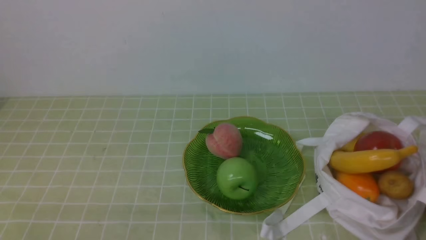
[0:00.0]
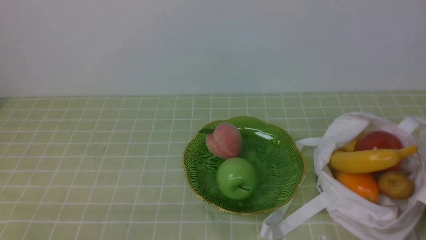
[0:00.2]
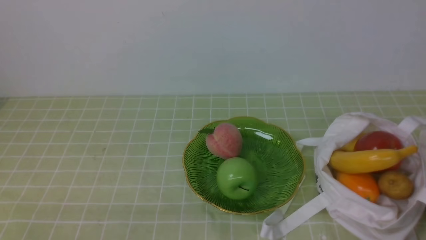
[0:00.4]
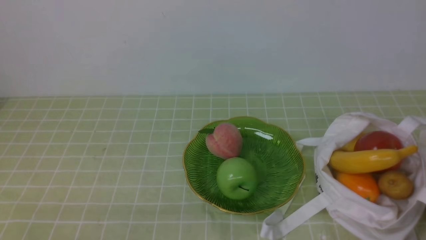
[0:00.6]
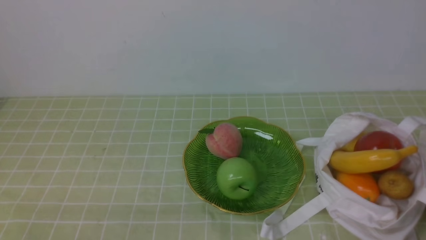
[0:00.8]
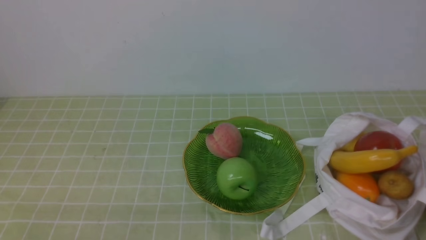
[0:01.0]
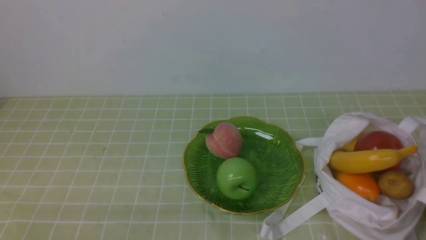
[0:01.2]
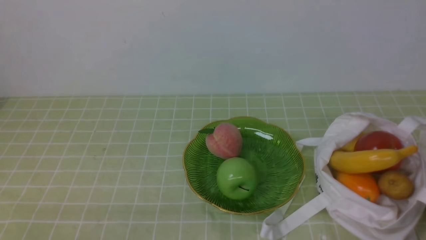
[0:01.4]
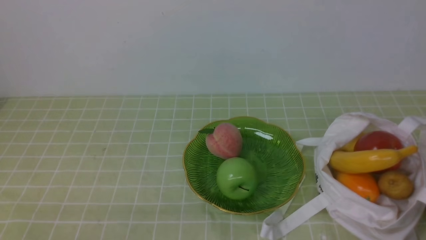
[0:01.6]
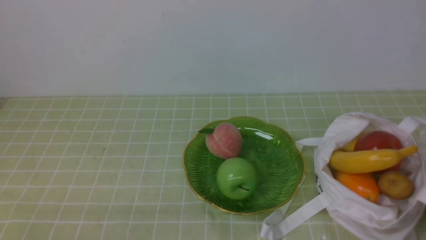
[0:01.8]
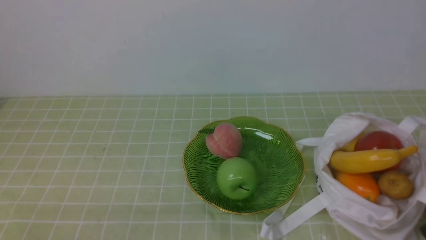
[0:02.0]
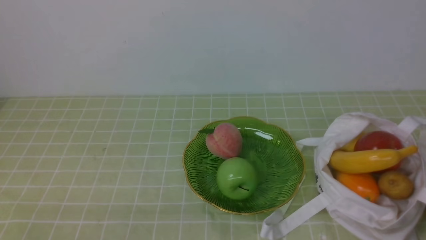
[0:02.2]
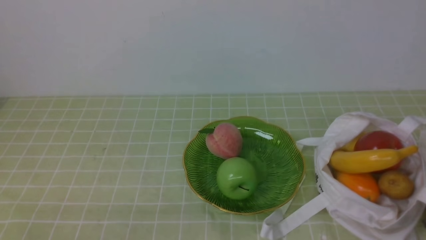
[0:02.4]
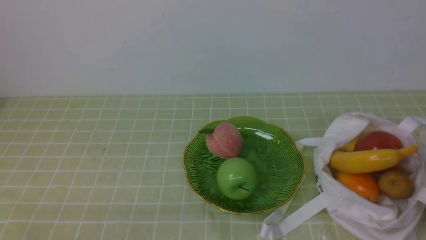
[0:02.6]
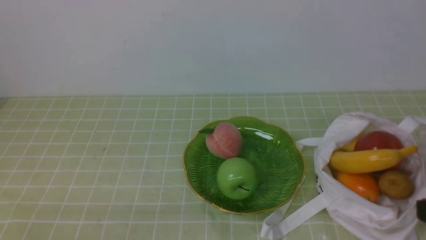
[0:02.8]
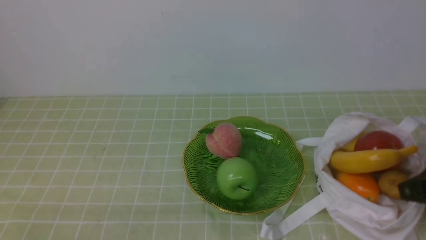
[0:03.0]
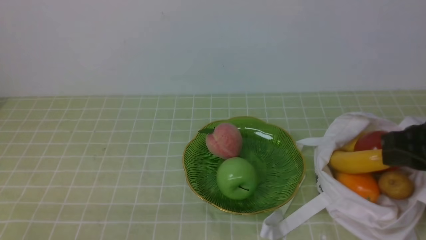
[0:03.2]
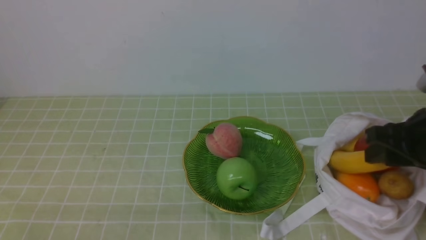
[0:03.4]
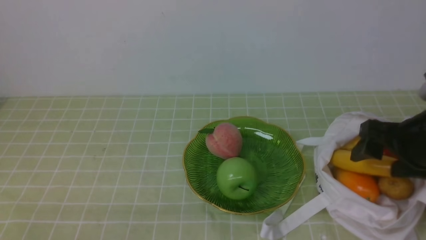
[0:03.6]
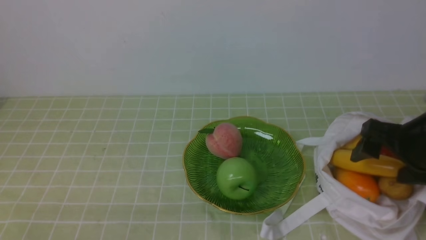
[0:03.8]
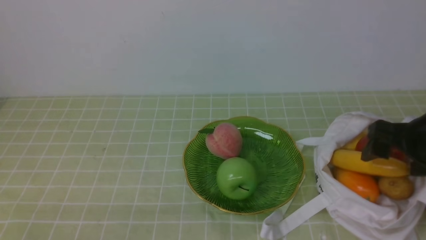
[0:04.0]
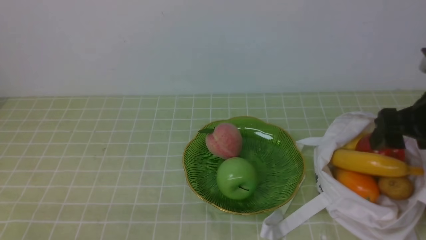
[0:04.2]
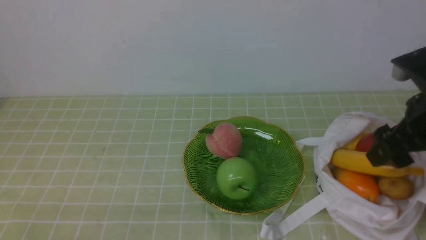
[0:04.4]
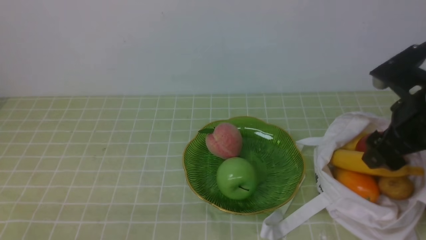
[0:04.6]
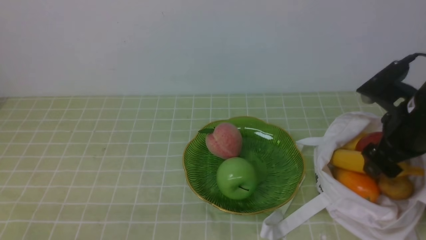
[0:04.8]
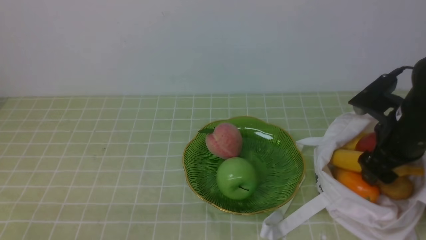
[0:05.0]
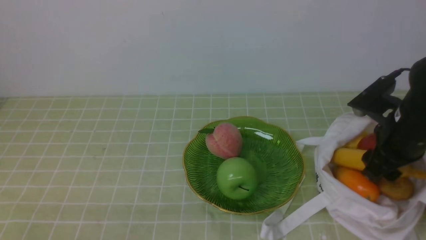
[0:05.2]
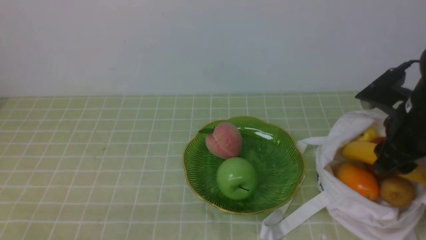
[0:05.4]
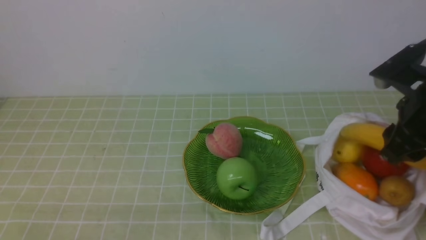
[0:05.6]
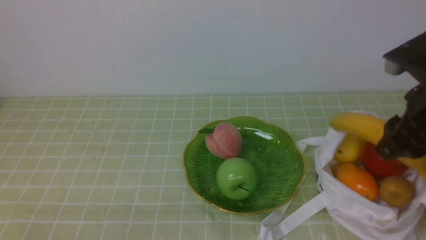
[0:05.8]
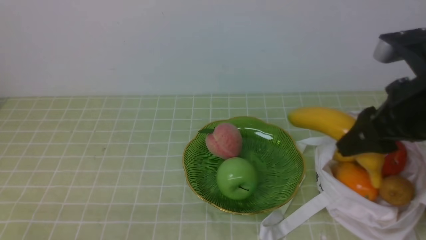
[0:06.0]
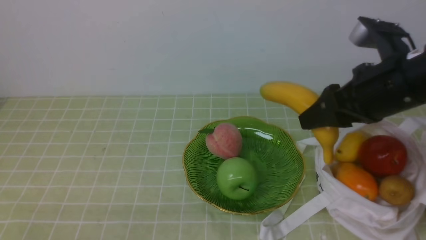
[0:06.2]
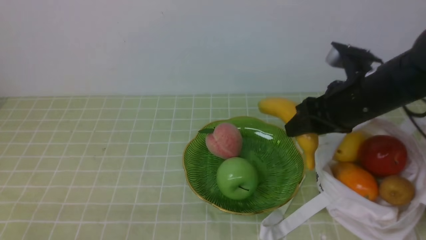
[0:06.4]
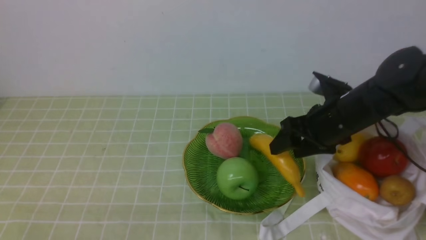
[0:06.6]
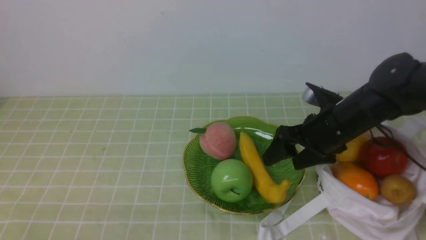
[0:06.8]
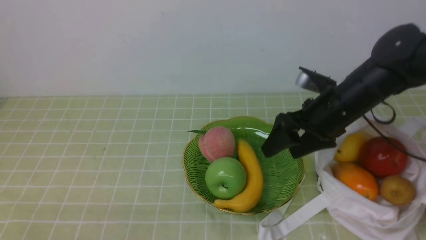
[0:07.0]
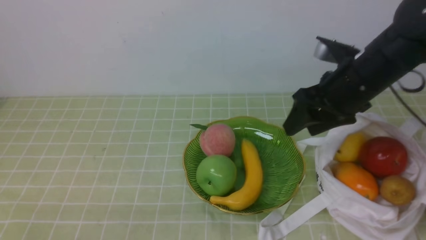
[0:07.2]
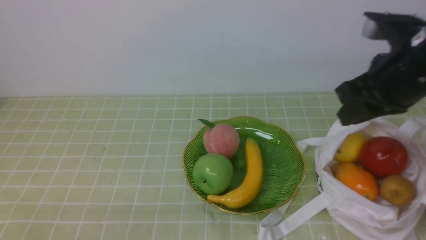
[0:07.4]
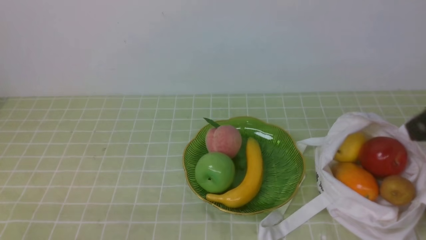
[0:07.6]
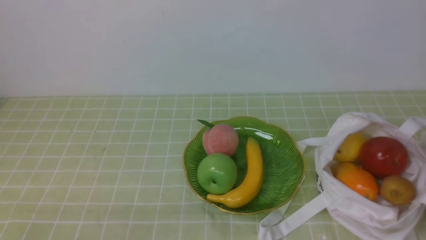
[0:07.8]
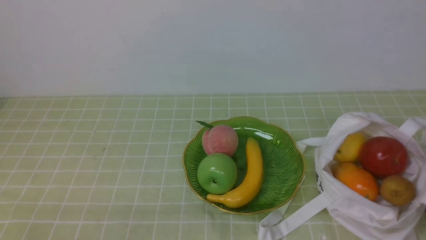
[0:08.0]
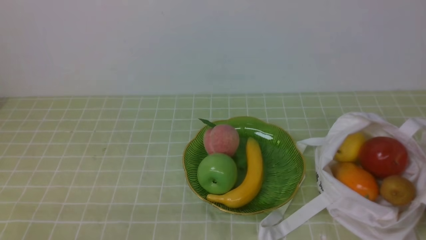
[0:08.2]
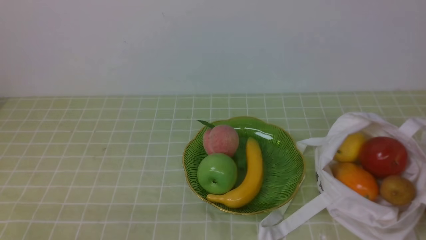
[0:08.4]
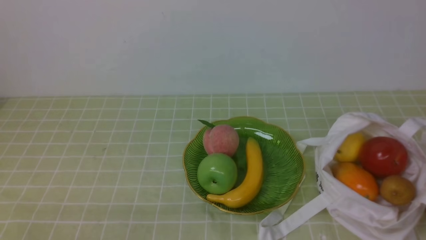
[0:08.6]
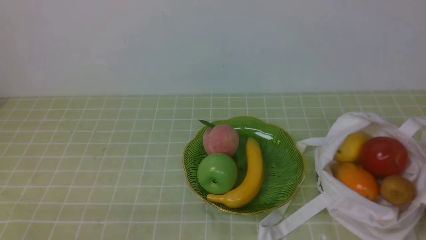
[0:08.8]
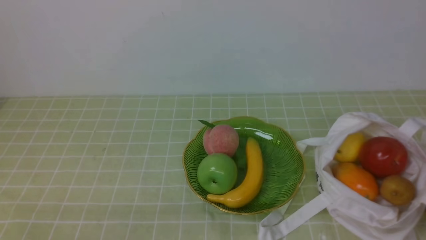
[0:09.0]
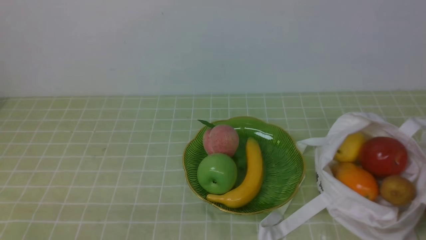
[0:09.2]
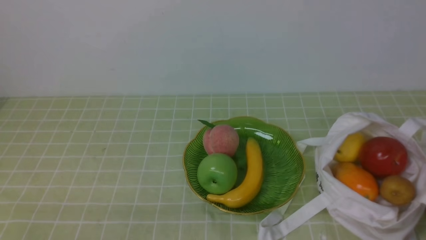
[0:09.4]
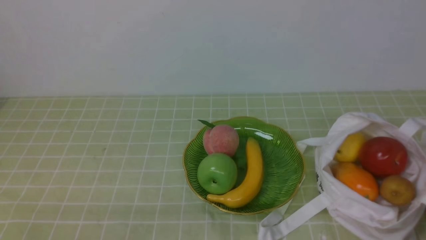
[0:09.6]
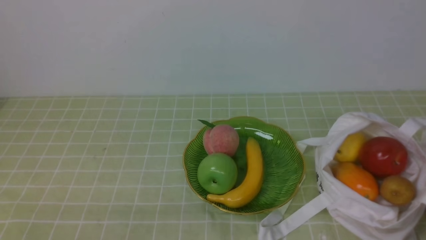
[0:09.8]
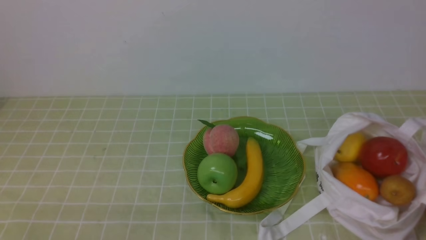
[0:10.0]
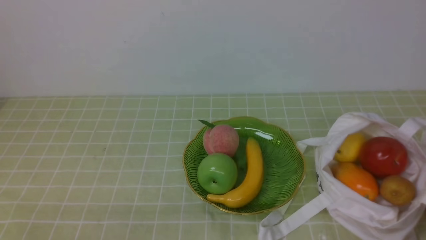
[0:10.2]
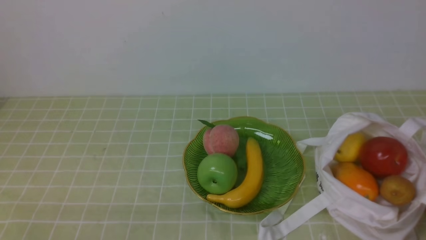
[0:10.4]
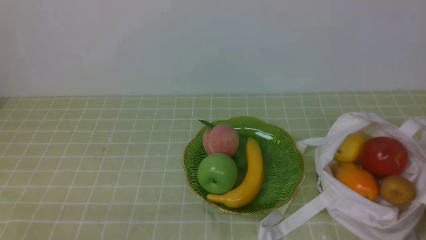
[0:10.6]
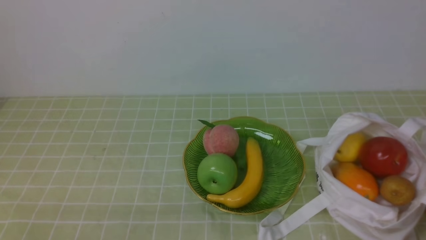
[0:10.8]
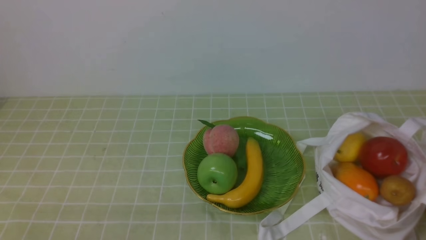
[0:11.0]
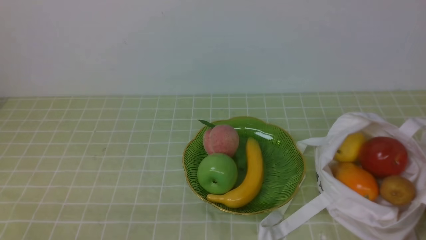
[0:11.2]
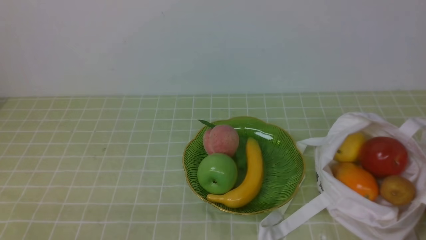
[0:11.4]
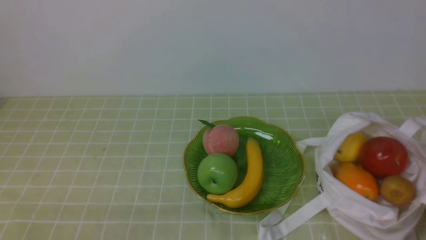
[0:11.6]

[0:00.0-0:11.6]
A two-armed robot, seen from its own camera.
Step, 0:00.0 to 0:05.6: use the right arm to grab a banana from the bag.
Step, 0:05.8 to 0:06.6: use the right arm to put the banana into the empty plate on the right.
0:00.0 to 0:01.4: Both grippers stay about where they are.
0:02.8 to 0:04.4: The right gripper moves forward, some 15 cm, and opens.
0:04.4 to 0:05.8: The right gripper moves roughly 5 cm downward and comes back, and closes its fingers.
0:05.8 to 0:07.2: The right gripper goes approximately 5 cm forward, reaches roughly 10 cm downward, then returns, and opens, then closes once more.
0:07.2 to 0:08.8: The right gripper is displaced backward by about 30 cm, and closes its fingers.
0:10.2 to 0:11.6: Neither gripper changes place.
